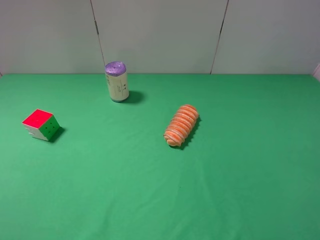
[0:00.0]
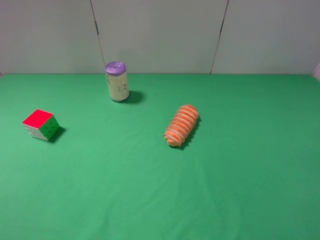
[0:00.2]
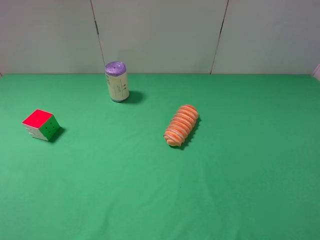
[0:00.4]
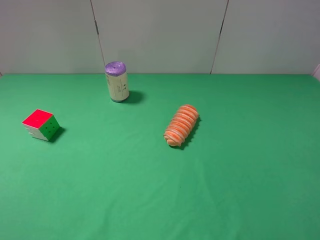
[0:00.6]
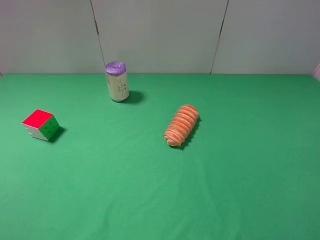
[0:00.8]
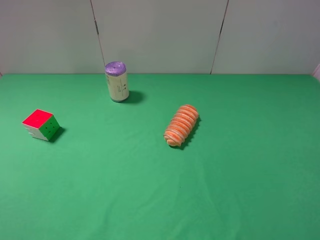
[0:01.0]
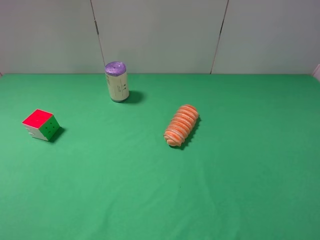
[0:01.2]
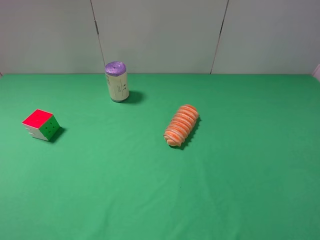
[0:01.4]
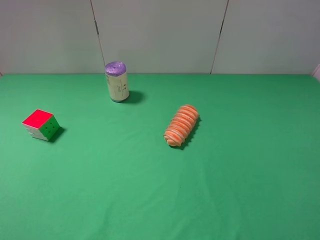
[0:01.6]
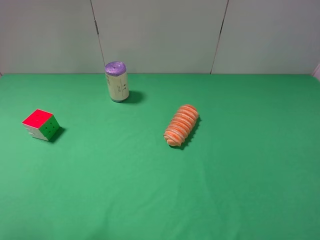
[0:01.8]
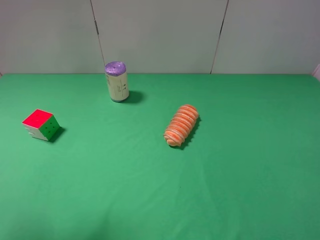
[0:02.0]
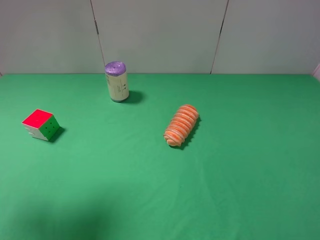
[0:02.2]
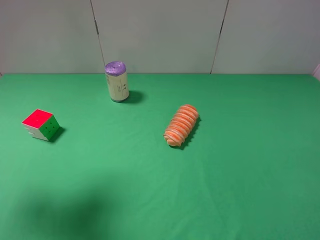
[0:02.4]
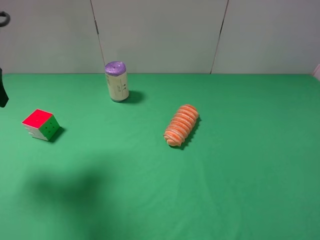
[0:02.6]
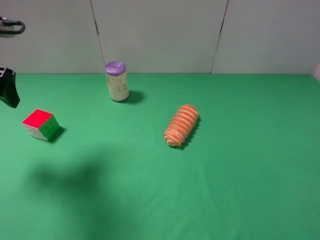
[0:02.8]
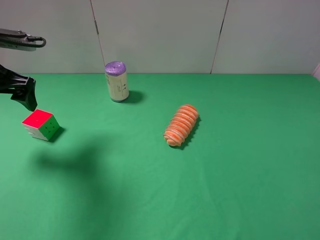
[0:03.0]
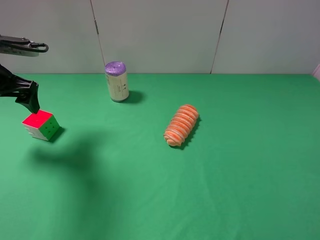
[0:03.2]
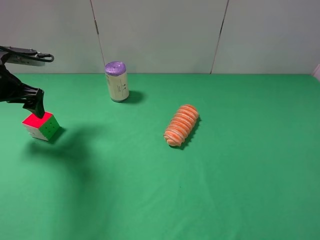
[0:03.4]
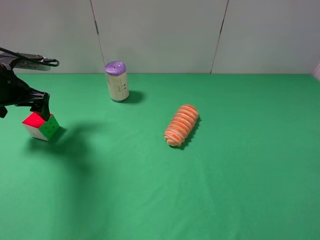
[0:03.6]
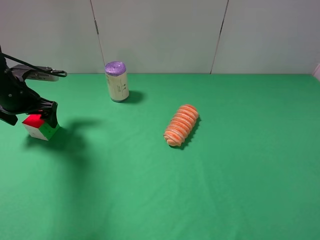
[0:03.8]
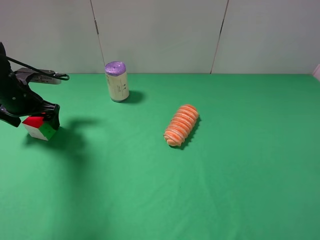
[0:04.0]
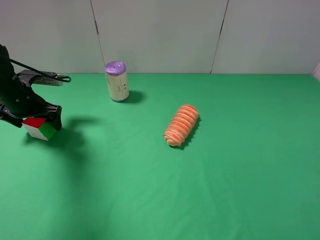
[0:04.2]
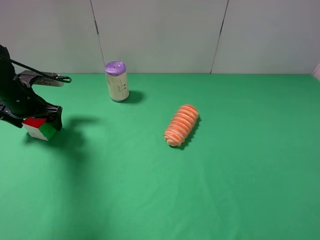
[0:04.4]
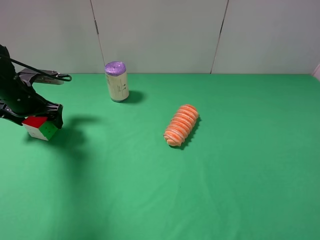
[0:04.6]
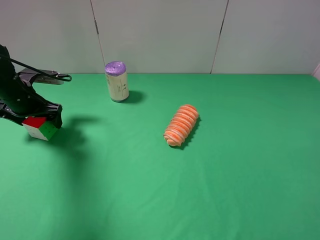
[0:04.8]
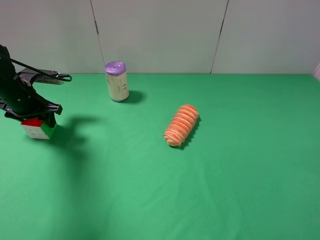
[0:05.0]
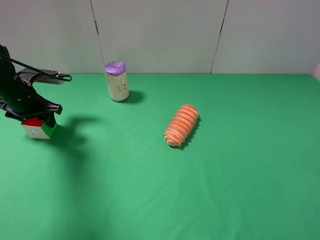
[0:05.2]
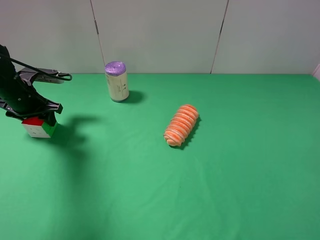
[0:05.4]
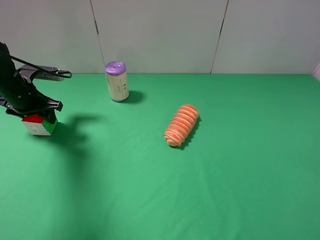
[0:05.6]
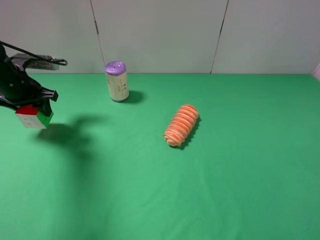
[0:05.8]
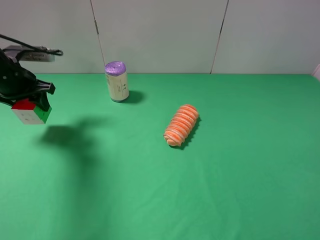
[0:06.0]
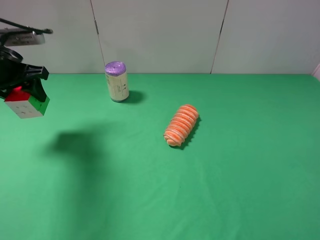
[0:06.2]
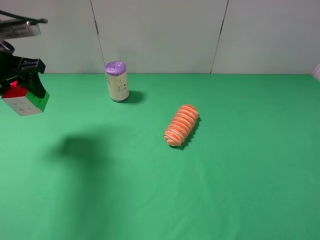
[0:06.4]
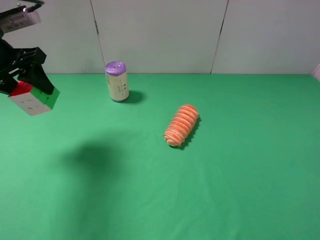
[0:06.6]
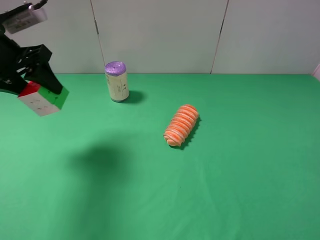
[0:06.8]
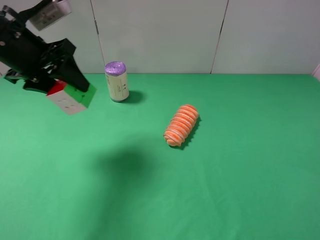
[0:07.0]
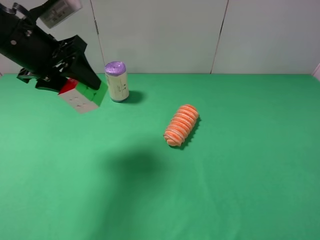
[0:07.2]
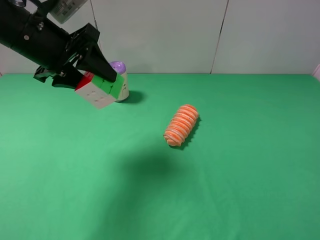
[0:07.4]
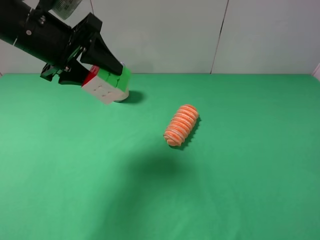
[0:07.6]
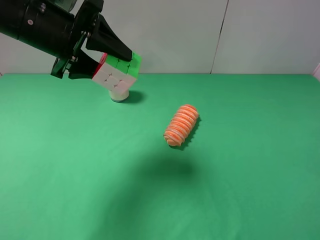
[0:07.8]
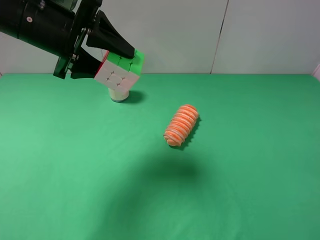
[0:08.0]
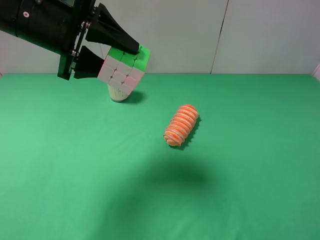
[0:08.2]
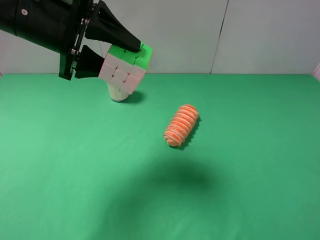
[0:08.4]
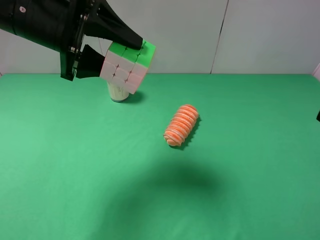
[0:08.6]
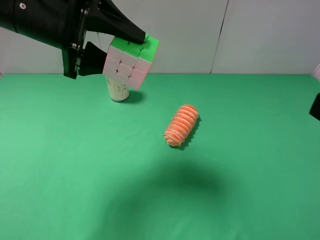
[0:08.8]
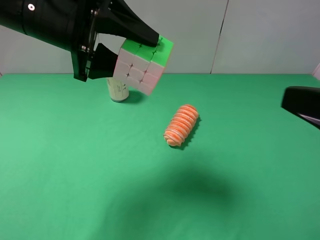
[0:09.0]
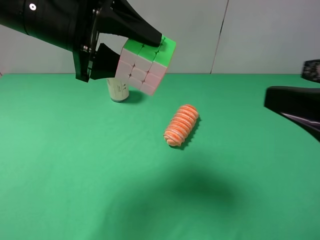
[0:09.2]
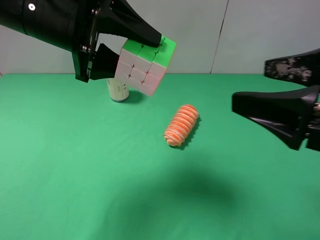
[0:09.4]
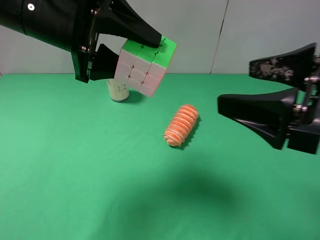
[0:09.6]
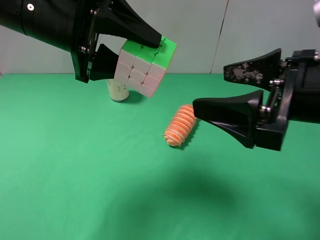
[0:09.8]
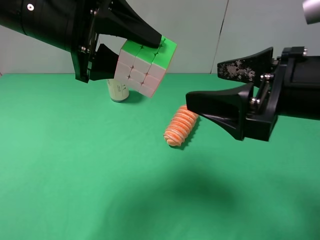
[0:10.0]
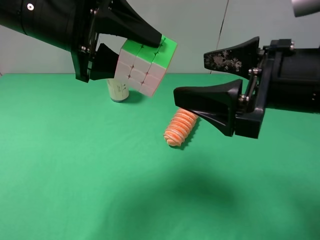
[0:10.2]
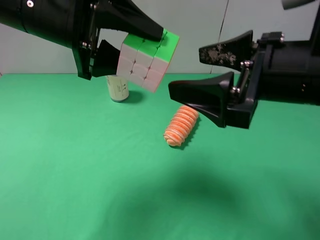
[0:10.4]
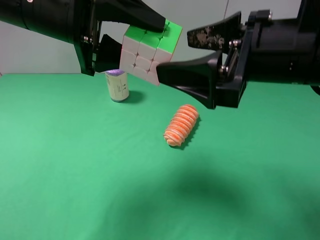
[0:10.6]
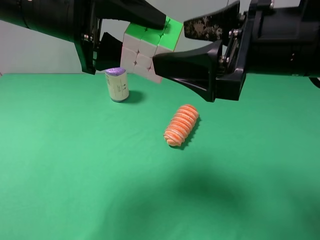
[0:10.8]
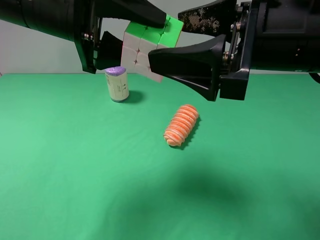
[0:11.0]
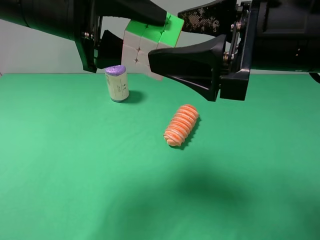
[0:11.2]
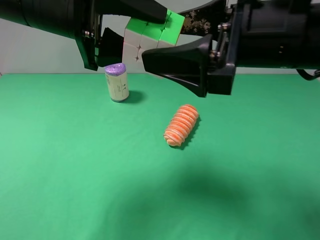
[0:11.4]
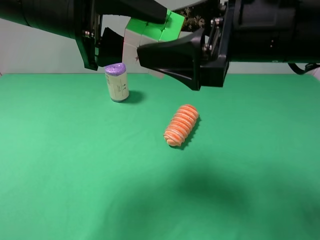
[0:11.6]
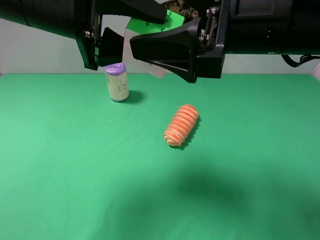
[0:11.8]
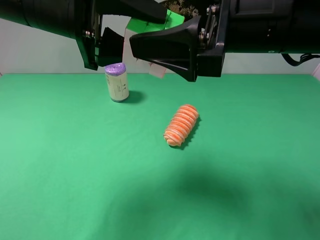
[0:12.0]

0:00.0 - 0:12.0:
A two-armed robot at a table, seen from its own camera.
Task of the whole recording: use the left gripper to pick up the item and transfer it from the left gripper to the right gripper.
Step, 0:00.0 - 0:05.0: Use the left gripper to grab the Rubik's Cube on the left side of the table.
0:01.6 - 0:03.0: The left gripper goes some 25 cm forward.
0:03.0 - 0:04.4: The left gripper heads downward and forward, covering roughly 15 cm.
0:04.4 - 0:06.0: The left gripper is displaced upward by roughly 5 cm, and closes its fingers.
0:06.0 - 0:07.6: The left gripper shifts roughly 15 cm to the right, upward and backward.
0:07.6 - 0:09.0: The right gripper is displaced forward by about 5 cm. Meanwhile the left gripper ends up some 5 cm from where it was.
0:09.0 - 0:10.4: The right gripper goes approximately 15 cm forward and to the left.
0:10.4 - 0:12.0: The right gripper changes place by approximately 5 cm.

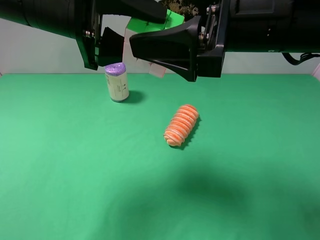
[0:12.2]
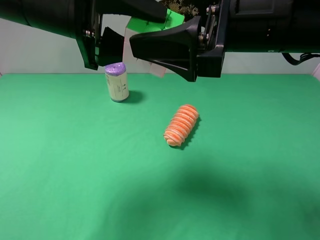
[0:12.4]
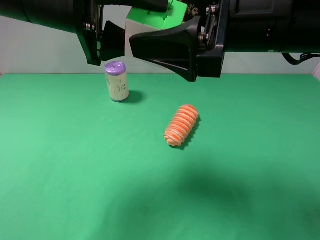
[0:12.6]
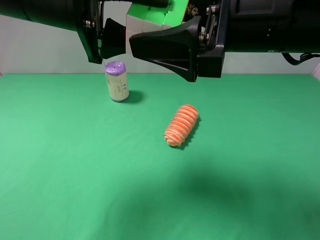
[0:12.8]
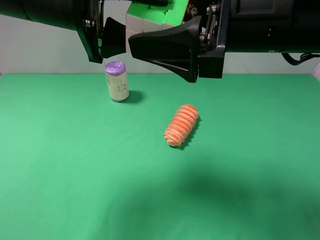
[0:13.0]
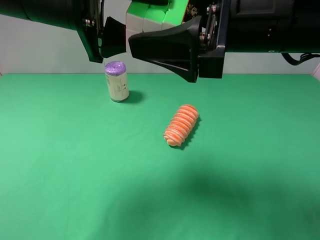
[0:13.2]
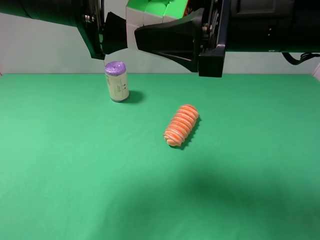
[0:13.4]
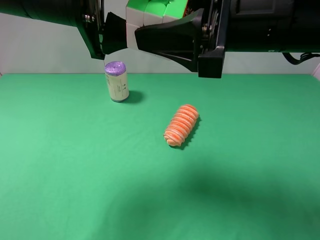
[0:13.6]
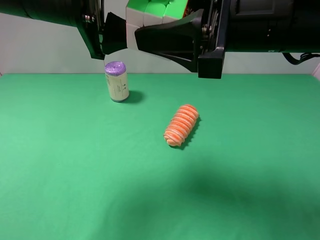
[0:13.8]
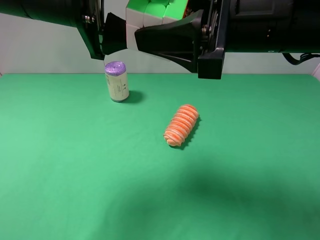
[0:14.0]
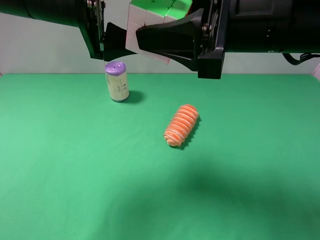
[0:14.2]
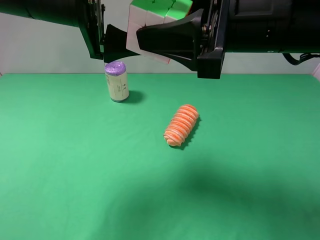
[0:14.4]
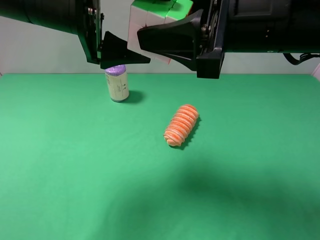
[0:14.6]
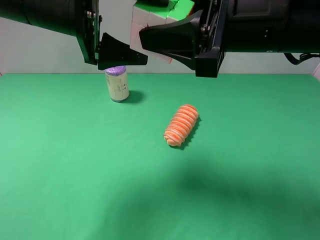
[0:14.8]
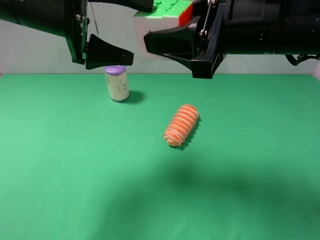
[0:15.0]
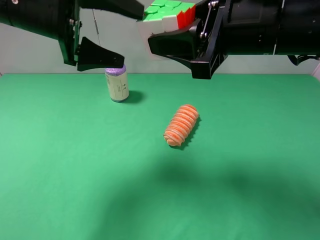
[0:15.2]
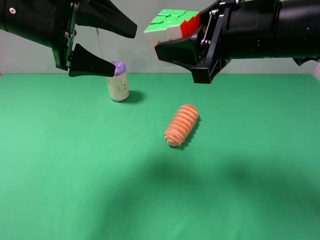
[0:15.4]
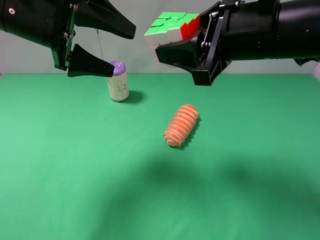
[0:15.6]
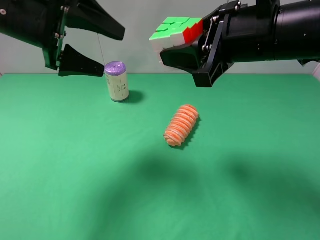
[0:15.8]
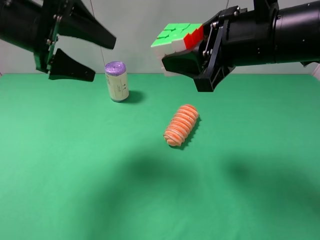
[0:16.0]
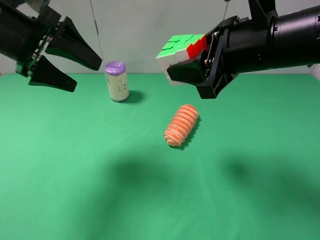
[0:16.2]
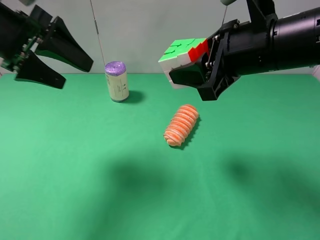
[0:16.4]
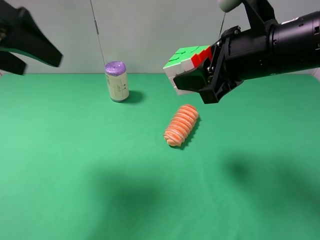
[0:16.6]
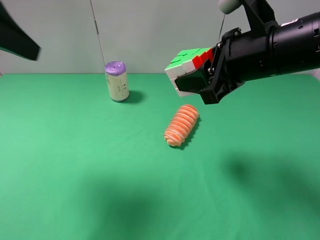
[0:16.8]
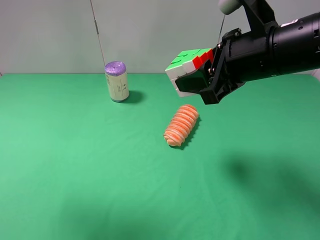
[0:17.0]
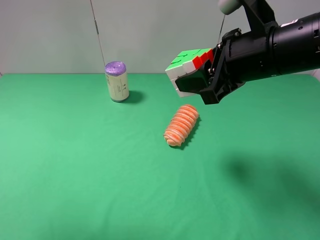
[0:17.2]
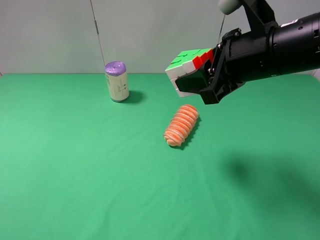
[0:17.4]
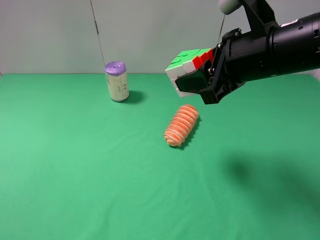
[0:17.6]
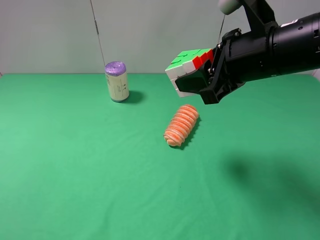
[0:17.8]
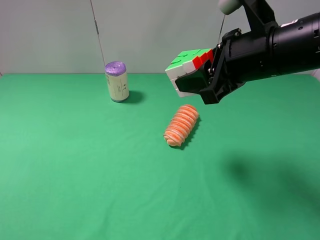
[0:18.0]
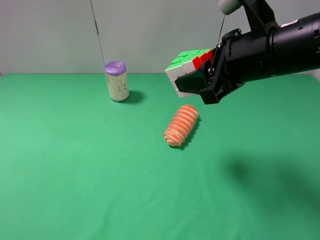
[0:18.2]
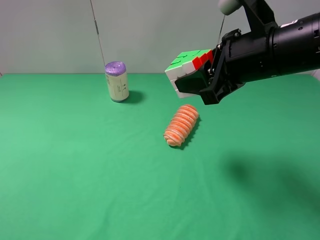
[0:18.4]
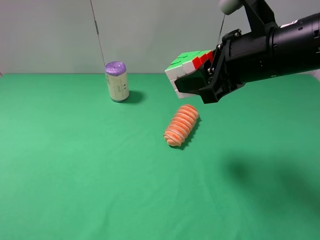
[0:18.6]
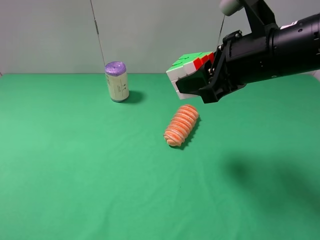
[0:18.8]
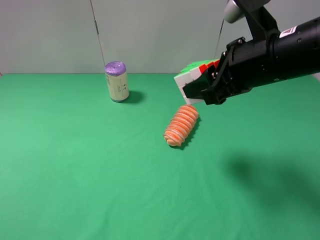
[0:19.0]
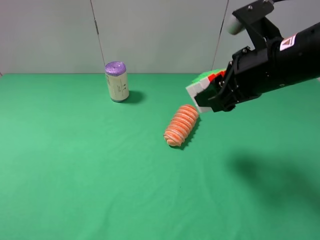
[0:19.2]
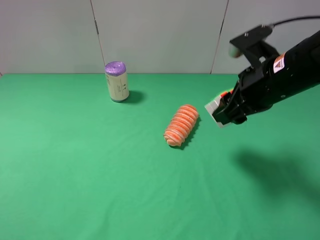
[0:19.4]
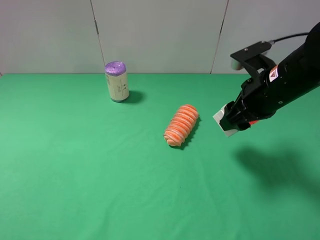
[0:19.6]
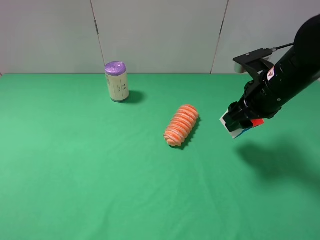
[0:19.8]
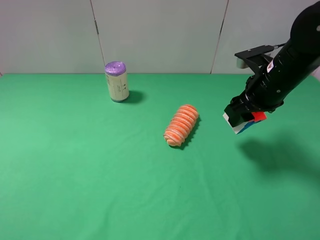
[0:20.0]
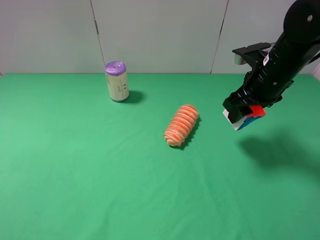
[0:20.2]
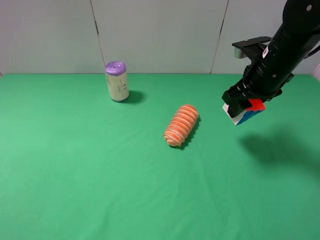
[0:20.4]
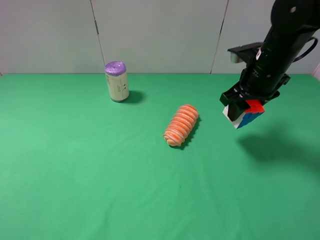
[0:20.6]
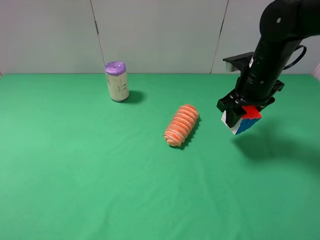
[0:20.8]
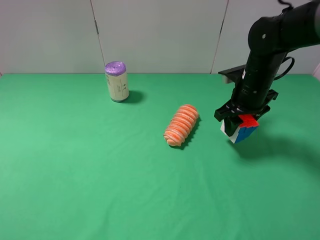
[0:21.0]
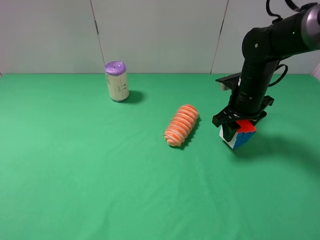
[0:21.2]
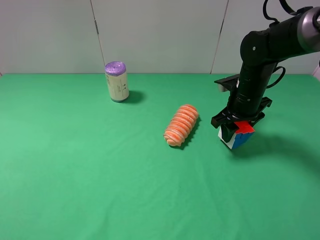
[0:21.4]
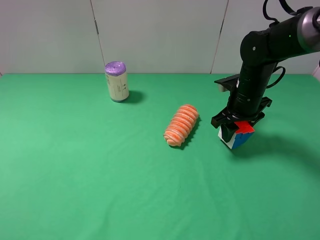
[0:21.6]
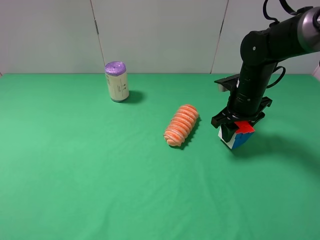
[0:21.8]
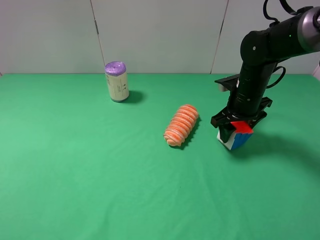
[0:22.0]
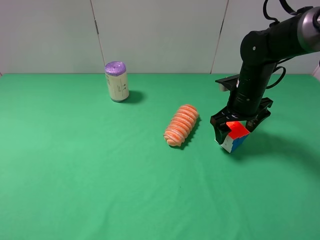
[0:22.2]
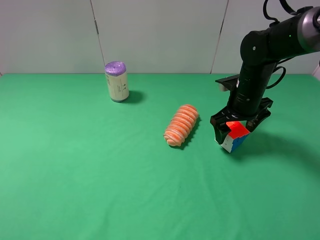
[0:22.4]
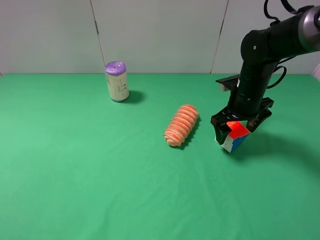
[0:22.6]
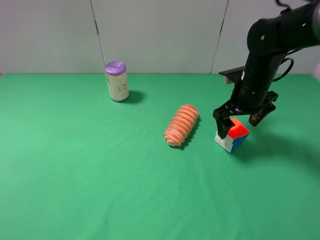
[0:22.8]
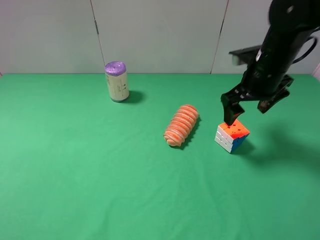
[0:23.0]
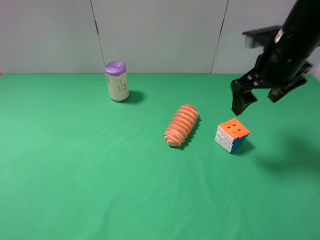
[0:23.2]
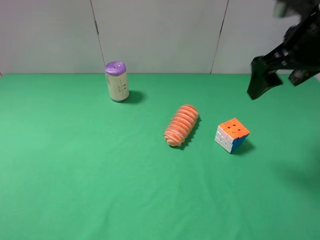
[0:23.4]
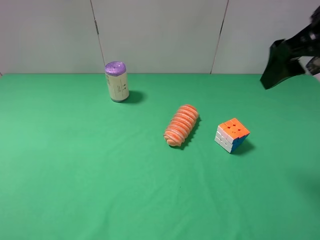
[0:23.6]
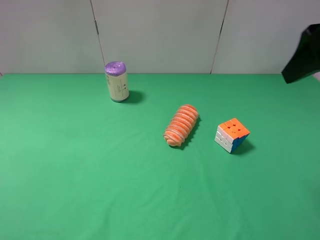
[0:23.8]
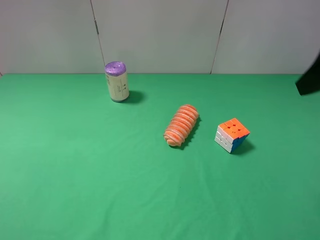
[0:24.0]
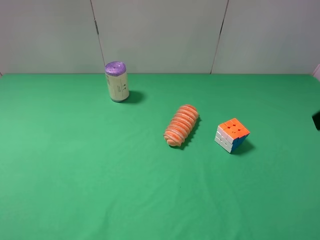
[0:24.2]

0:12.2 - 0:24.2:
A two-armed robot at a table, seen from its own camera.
Task of the whole recording: use the left gripper to pick up the item and transfer it from the left gripper to the right gripper.
Step, 0:12.2 - 0:14.8: Pass the Rubik's Cube to the right gripper.
Step, 0:15.0 - 0:22.2: The right gripper places Rubik's Cube on the right side of the table.
0:12.2 - 0:13.8: The right gripper closes.
0:13.8 - 0:15.2: The left gripper opens up.
0:15.2 - 0:16.6: The left gripper goes about 10 cm to the left and backward.
0:16.6 - 0:18.2: The left gripper goes roughly 25 cm backward.
0:18.2 - 0:19.8: The right gripper goes about 10 cm downward and to the right.
0:19.8 - 0:21.2: The right gripper is displaced forward and downward by approximately 10 cm.
0:21.2 - 0:22.6: The right gripper opens up.
0:22.6 - 0:24.2: The right gripper travels backward and upward by about 30 cm.
